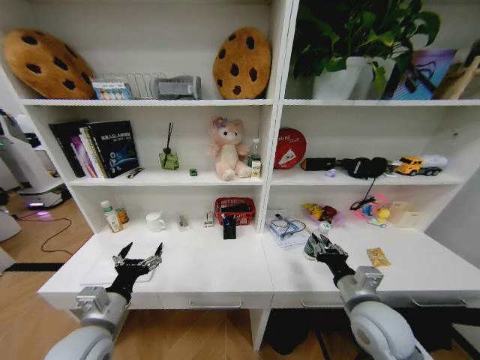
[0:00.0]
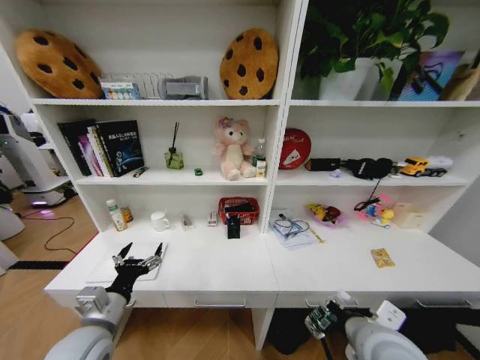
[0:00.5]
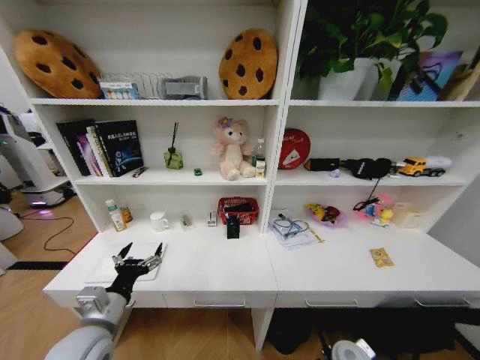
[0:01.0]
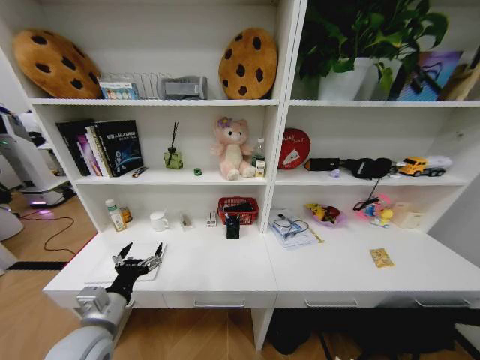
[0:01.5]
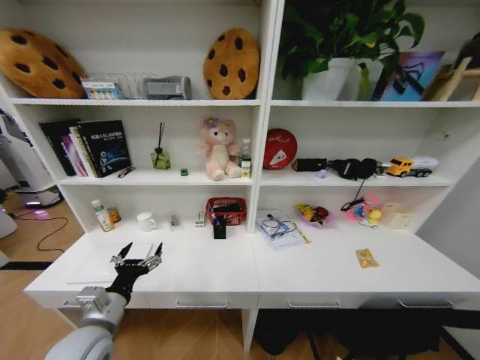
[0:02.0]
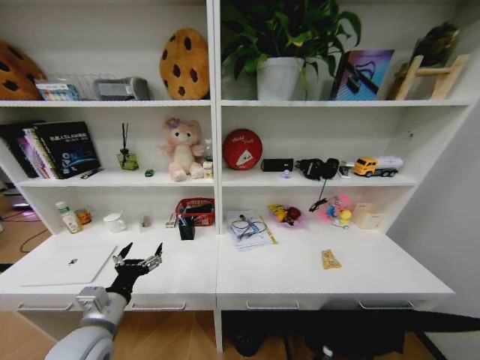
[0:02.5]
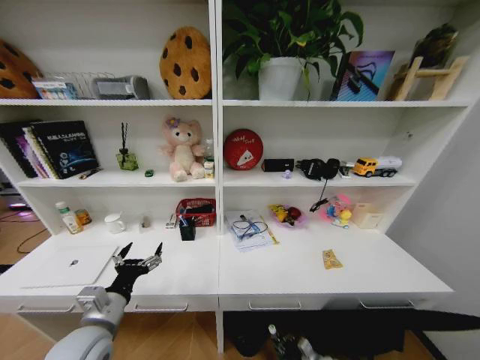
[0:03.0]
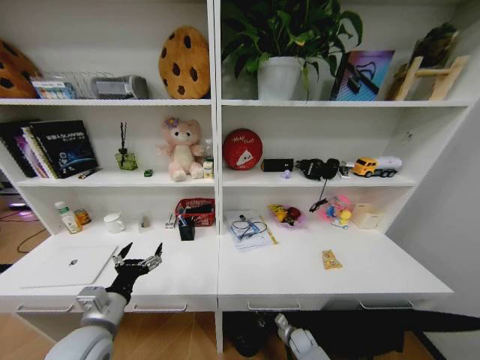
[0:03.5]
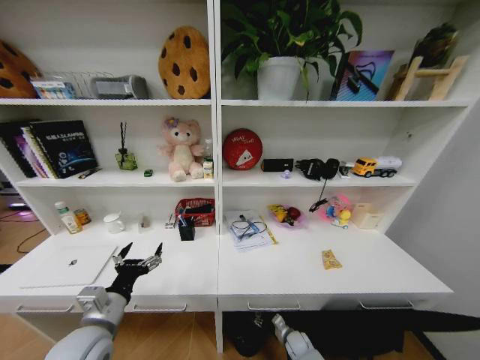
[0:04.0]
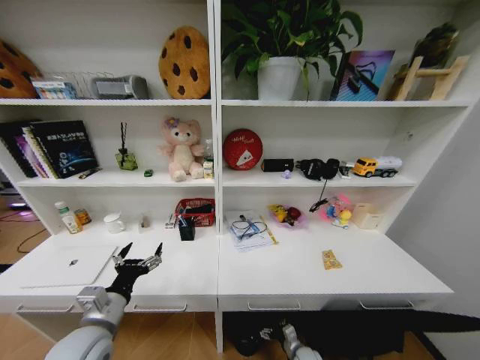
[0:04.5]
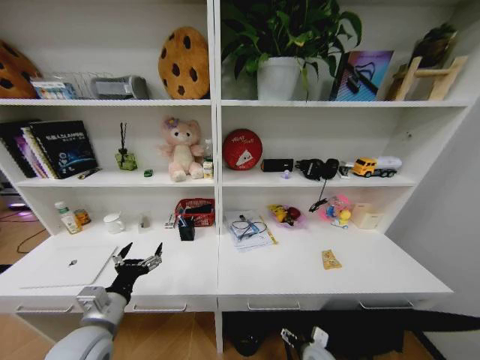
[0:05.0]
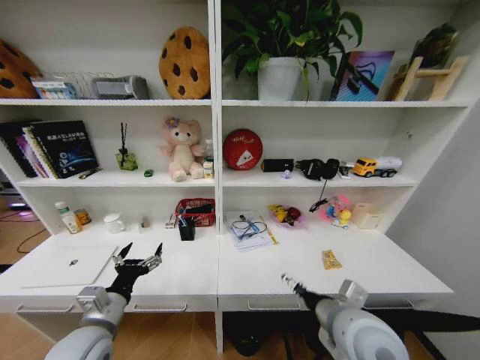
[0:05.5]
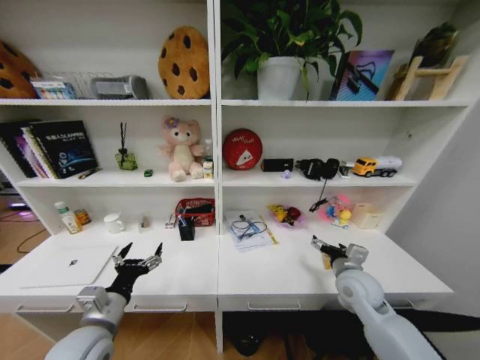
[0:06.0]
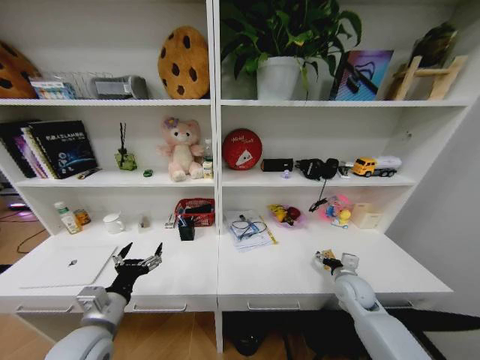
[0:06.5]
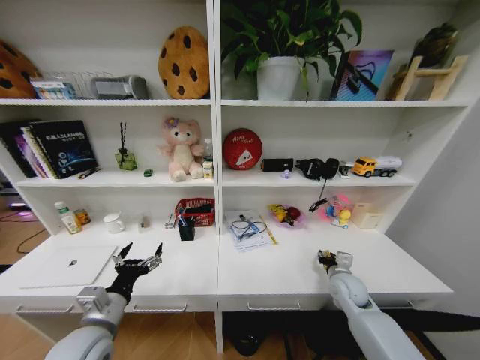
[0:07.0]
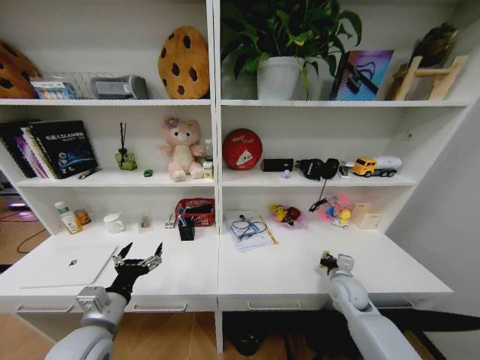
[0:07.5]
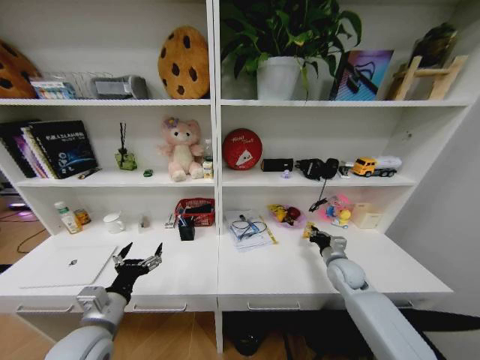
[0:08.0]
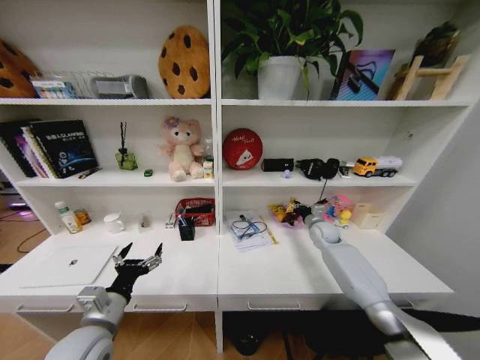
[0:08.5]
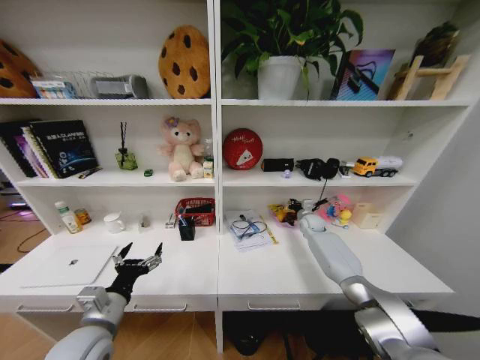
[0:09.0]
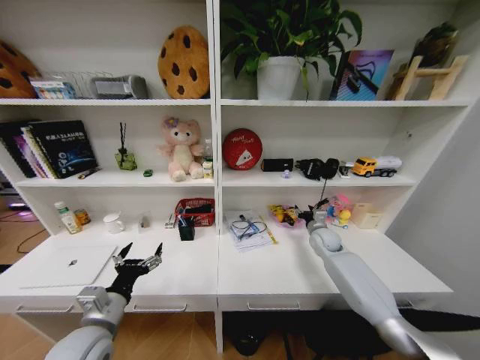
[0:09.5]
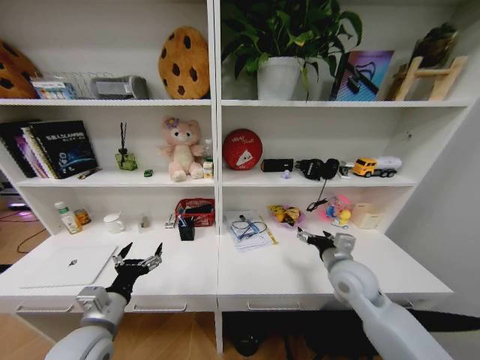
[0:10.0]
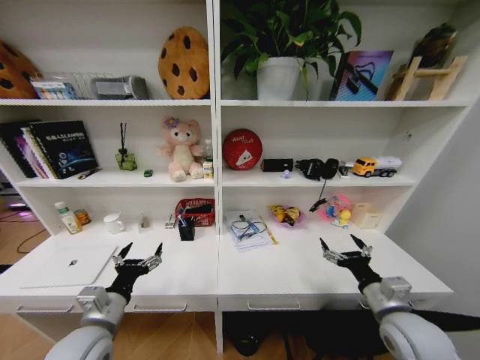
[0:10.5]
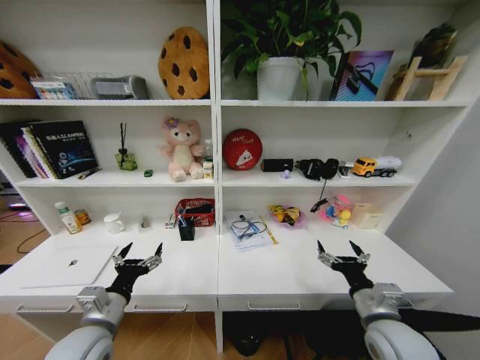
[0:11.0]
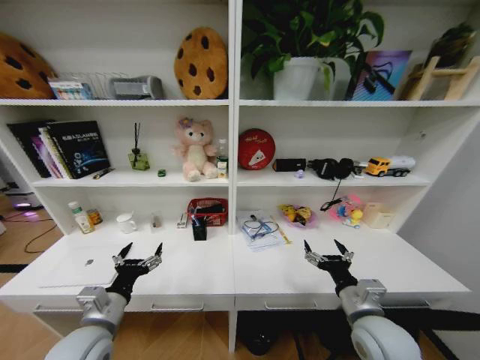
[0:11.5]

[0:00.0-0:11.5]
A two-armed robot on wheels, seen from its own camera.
Task of the whole recording: Organize the objects on the table.
0:00.0 to 0:02.0: The right gripper moves downward, some 30 cm.
0:02.0 to 0:04.0: The right gripper shifts roughly 20 cm forward, to the left and downward, and opens up.
0:04.0 to 0:06.0: The right gripper travels upward by about 40 cm, and opens.
0:06.0 to 0:07.5: The right gripper moves downward, about 10 cm, and closes up.
0:07.5 to 0:09.5: The right gripper travels forward by approximately 15 cm, and opens up.
0:09.5 to 0:11.5: The right gripper is displaced backward by roughly 30 cm, and opens.
